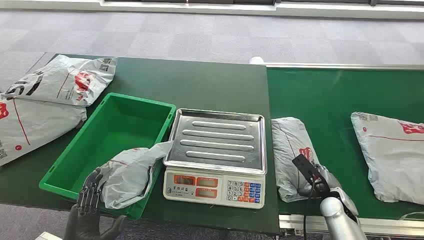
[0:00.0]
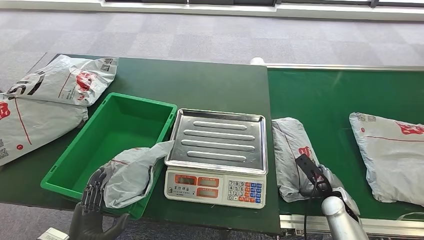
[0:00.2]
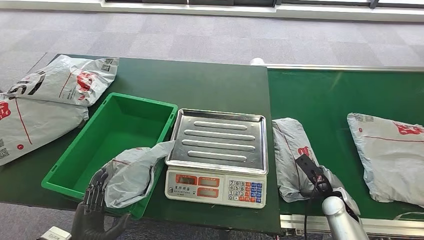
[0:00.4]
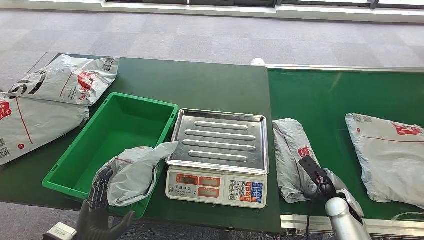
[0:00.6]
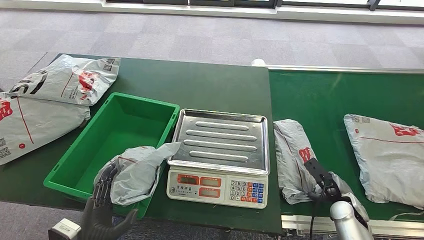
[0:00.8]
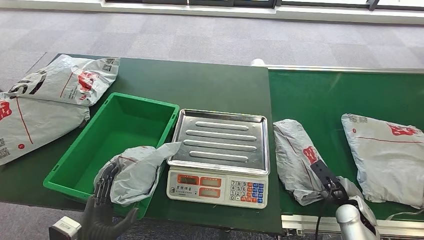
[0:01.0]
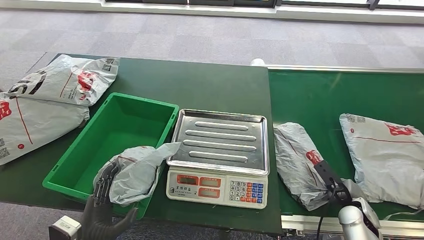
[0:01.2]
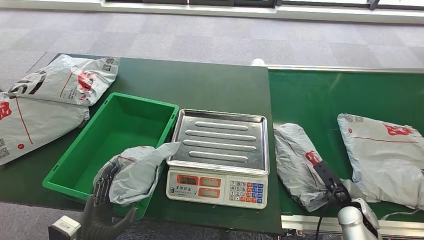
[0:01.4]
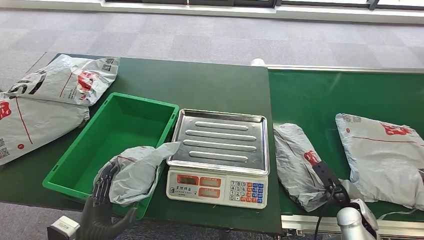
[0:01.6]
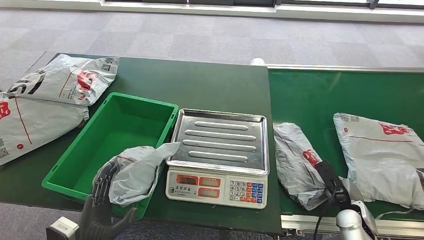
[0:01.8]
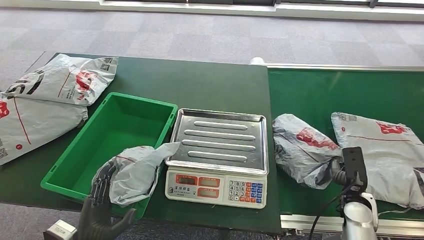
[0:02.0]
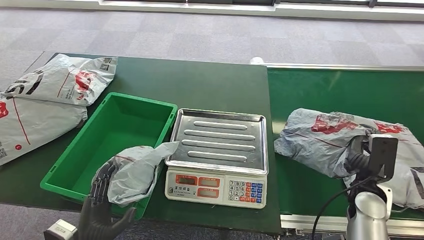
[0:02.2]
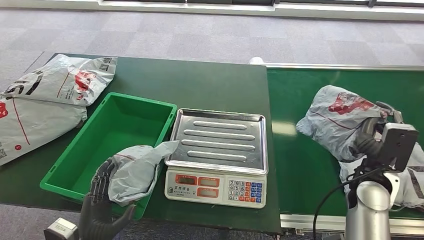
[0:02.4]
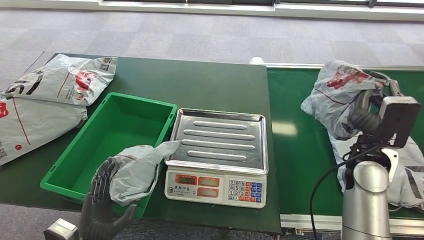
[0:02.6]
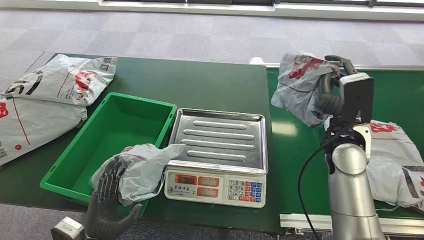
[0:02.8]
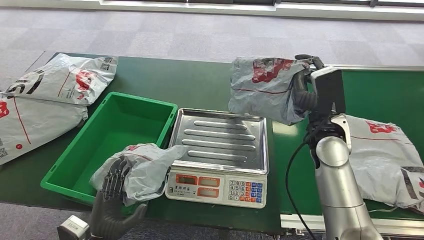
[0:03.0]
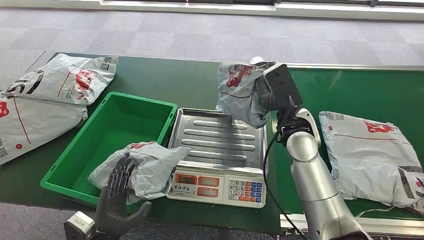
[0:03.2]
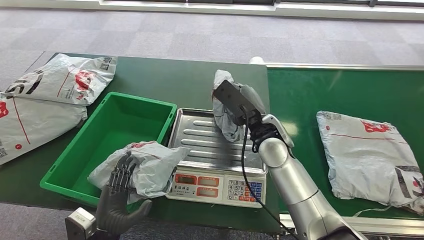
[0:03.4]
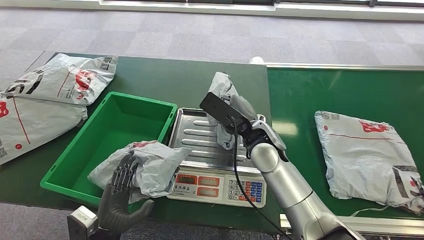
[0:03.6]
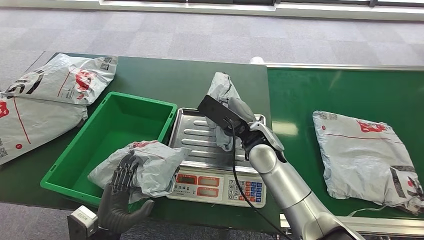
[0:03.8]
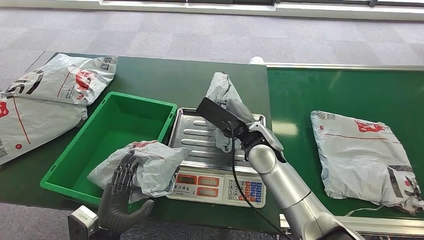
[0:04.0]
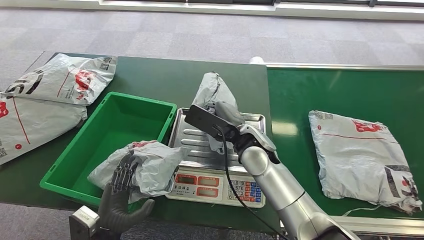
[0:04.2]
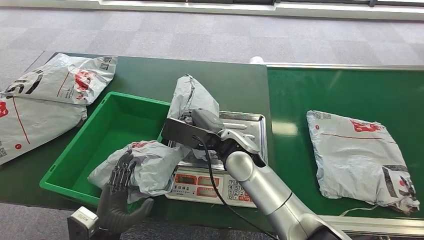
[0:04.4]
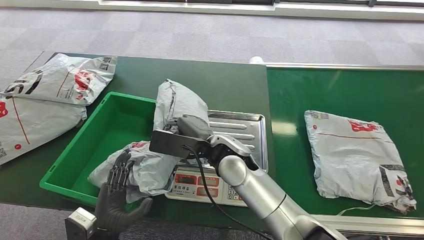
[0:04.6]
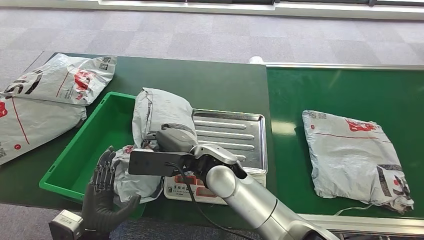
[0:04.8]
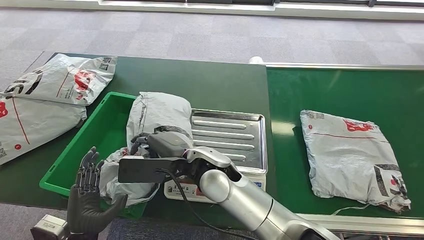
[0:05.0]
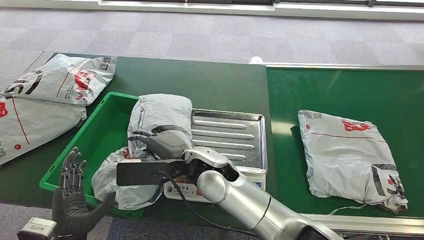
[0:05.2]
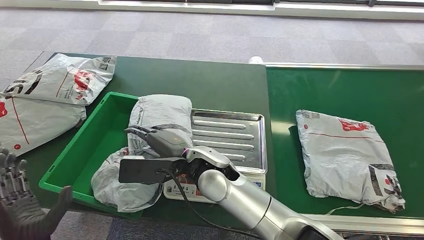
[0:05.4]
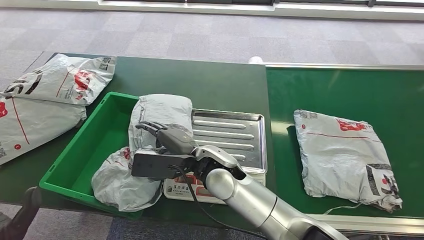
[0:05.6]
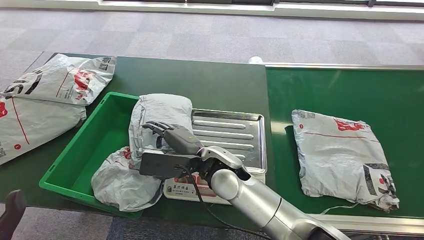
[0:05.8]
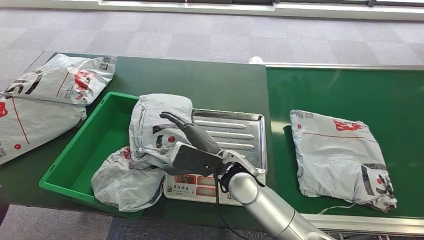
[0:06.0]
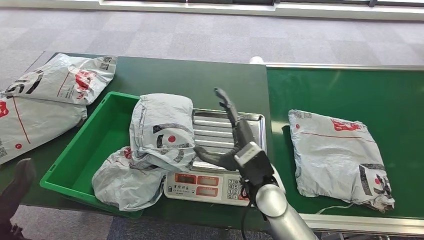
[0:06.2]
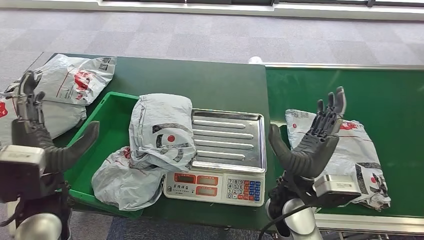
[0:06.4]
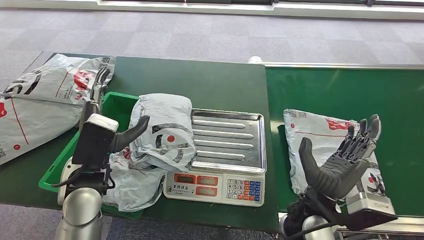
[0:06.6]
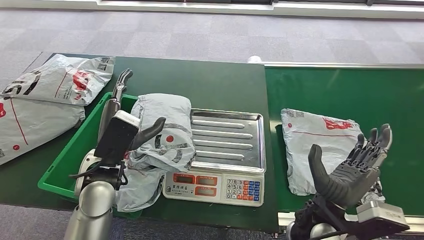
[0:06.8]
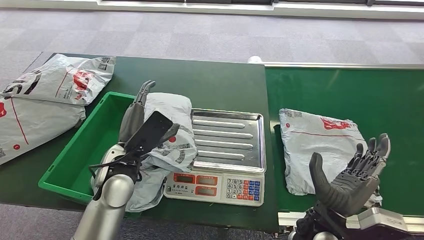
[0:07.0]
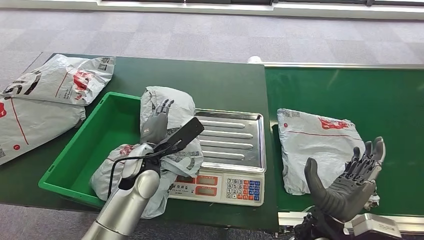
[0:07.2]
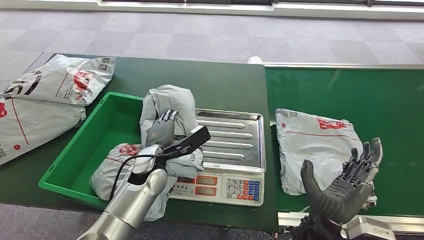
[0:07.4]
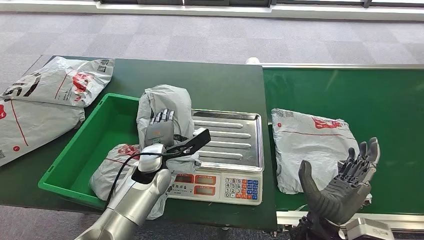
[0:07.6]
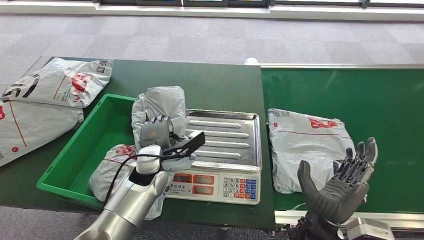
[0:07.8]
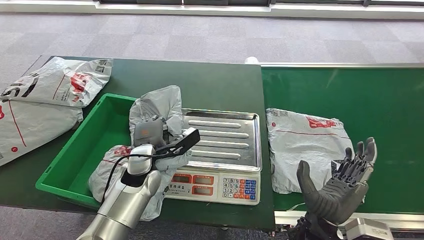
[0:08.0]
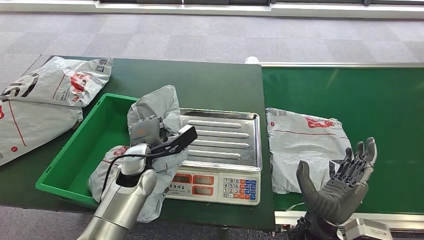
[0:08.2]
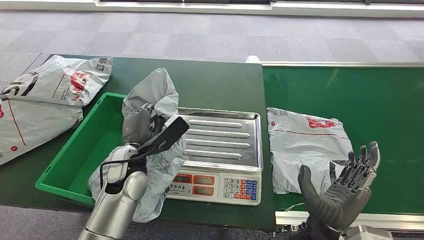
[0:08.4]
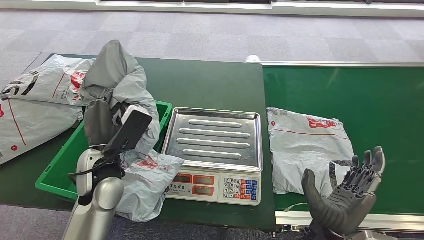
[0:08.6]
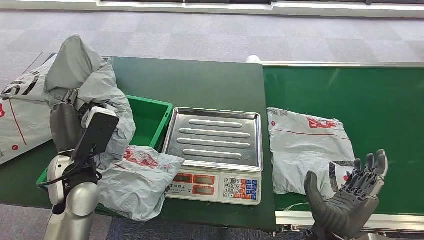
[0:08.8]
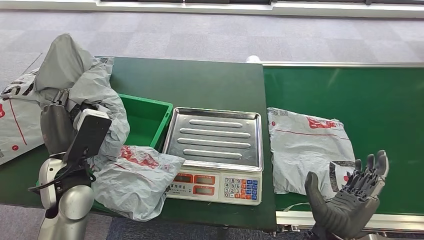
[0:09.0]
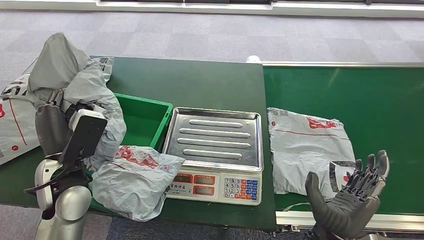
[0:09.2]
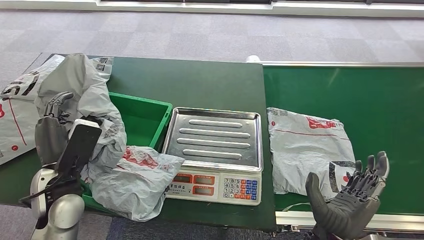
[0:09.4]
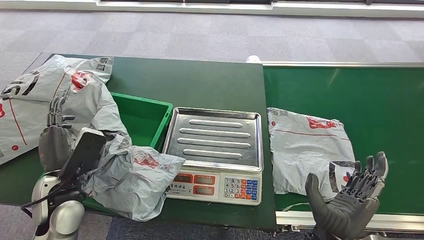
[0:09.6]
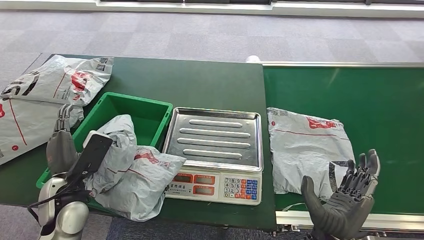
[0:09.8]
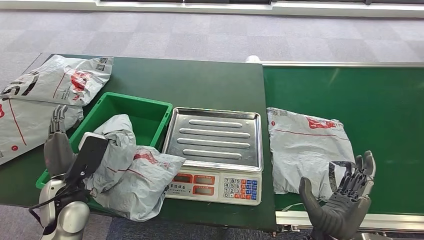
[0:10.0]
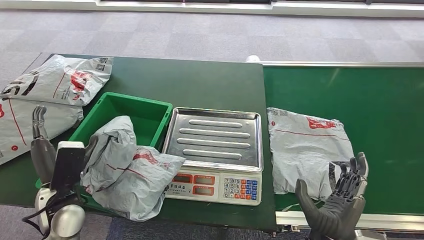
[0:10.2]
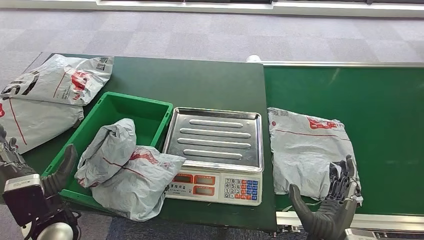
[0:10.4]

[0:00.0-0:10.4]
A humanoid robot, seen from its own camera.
Step, 0:00.0 to 0:02.4: Pick up the package from the conveyor belt.
Step, 0:02.6 to 0:04.4: Place the package onto the inbound machine.
Step, 0:06.4 to 0:09.0: Pick up the package from the inbound machine.
Step, 0:09.4 to 0:10.4: Place the package into the parcel locker.
